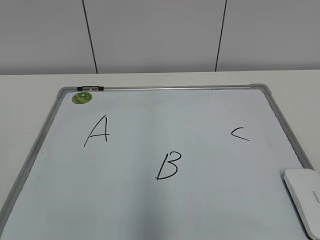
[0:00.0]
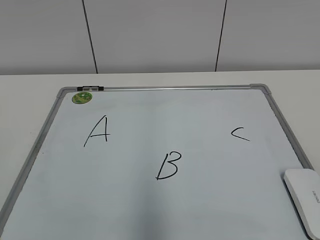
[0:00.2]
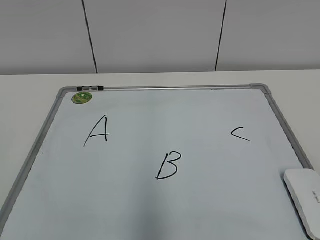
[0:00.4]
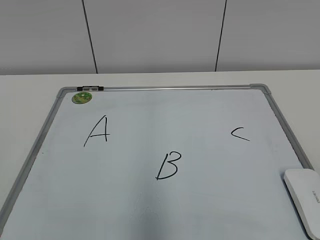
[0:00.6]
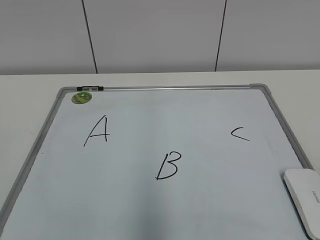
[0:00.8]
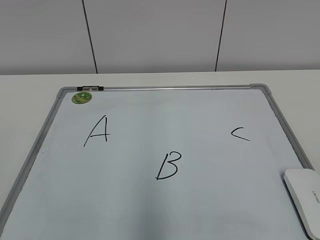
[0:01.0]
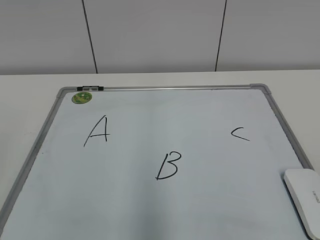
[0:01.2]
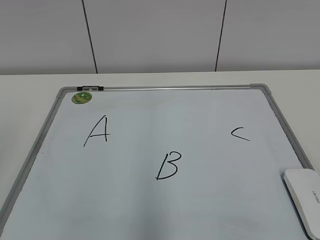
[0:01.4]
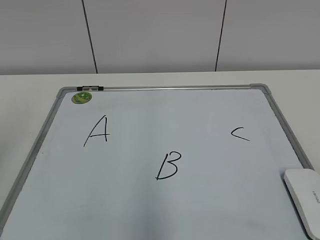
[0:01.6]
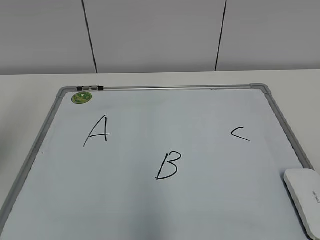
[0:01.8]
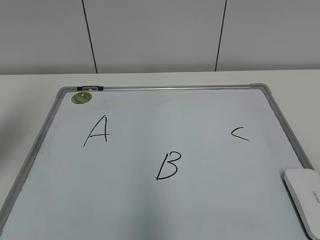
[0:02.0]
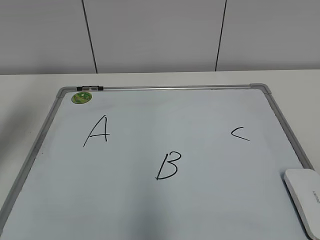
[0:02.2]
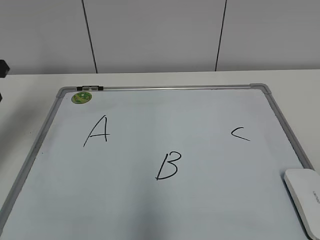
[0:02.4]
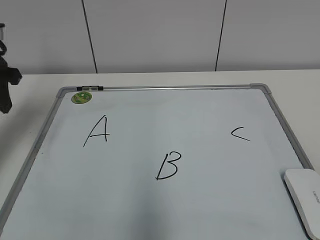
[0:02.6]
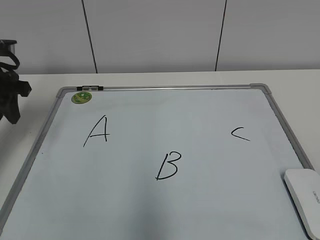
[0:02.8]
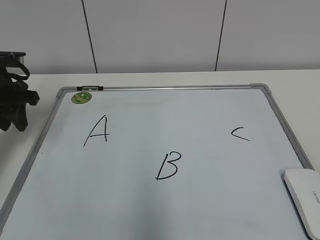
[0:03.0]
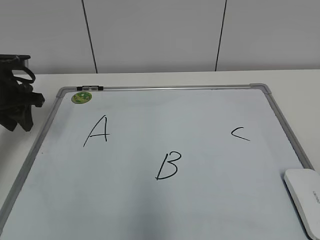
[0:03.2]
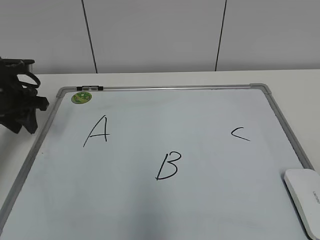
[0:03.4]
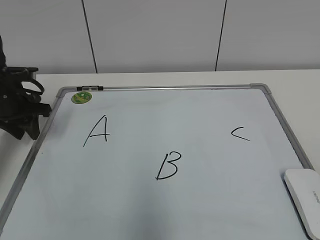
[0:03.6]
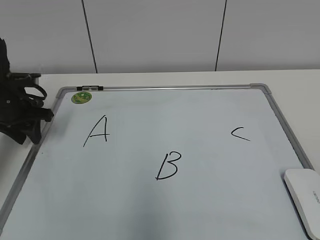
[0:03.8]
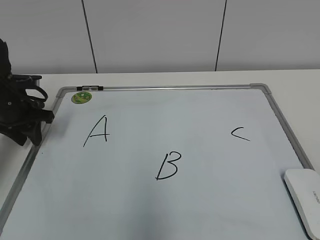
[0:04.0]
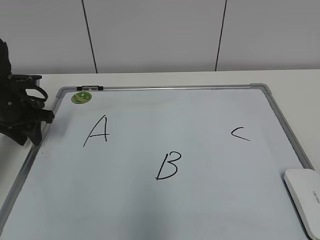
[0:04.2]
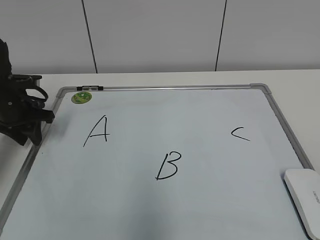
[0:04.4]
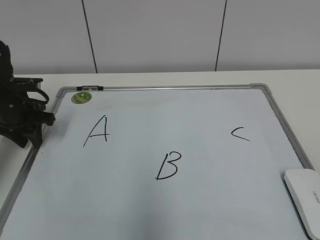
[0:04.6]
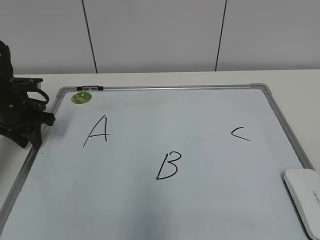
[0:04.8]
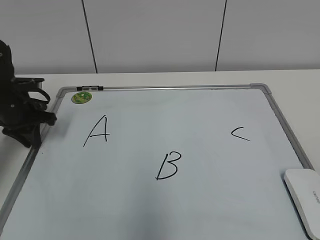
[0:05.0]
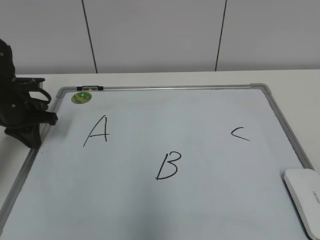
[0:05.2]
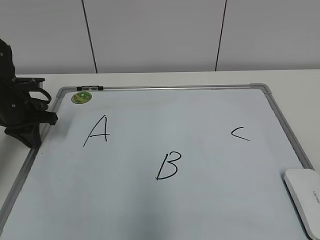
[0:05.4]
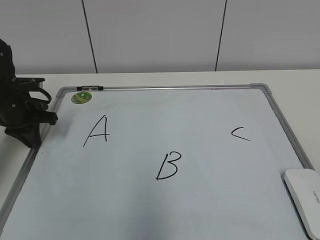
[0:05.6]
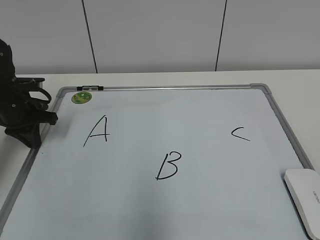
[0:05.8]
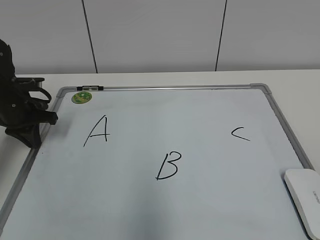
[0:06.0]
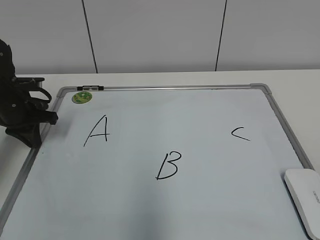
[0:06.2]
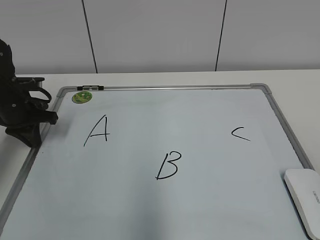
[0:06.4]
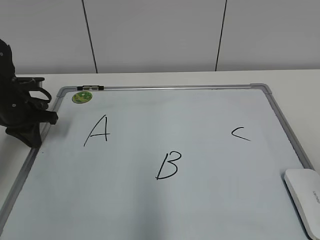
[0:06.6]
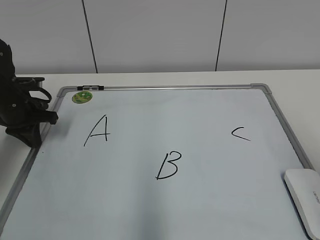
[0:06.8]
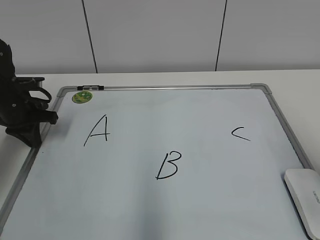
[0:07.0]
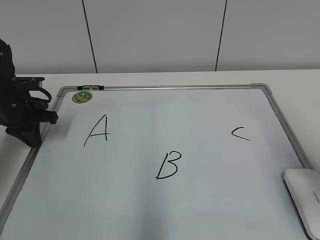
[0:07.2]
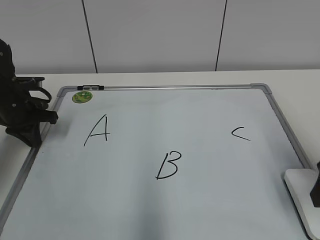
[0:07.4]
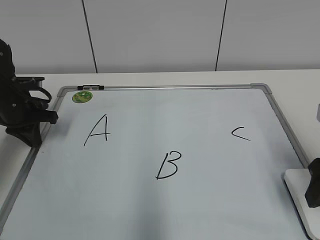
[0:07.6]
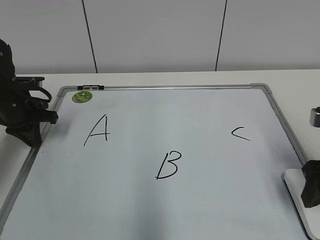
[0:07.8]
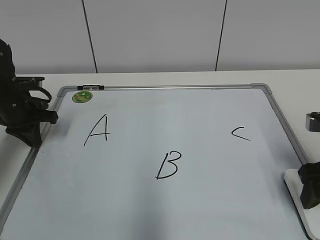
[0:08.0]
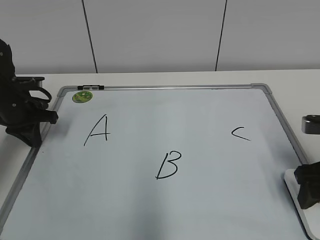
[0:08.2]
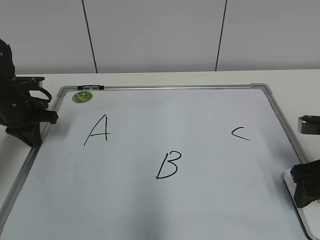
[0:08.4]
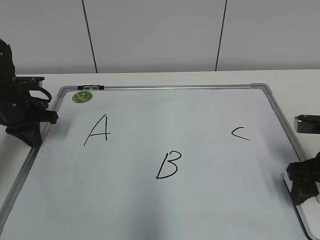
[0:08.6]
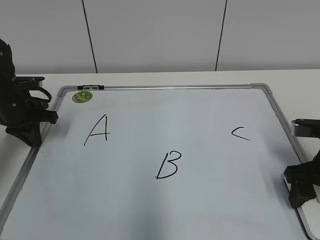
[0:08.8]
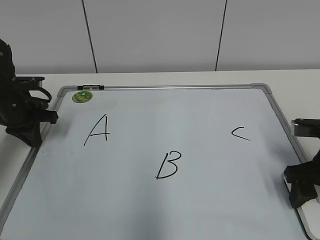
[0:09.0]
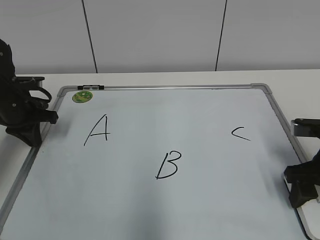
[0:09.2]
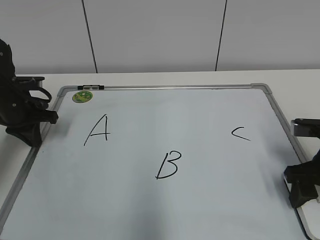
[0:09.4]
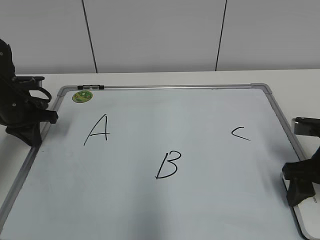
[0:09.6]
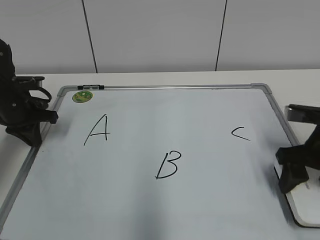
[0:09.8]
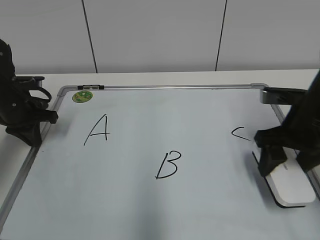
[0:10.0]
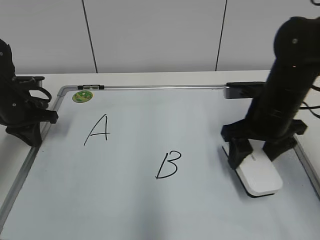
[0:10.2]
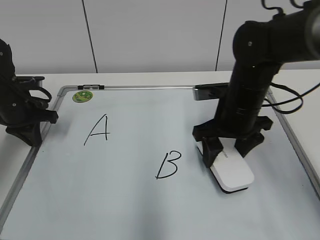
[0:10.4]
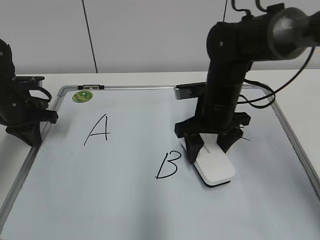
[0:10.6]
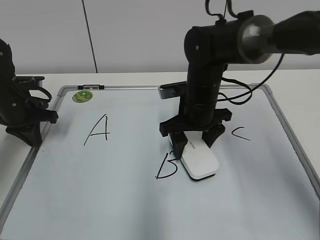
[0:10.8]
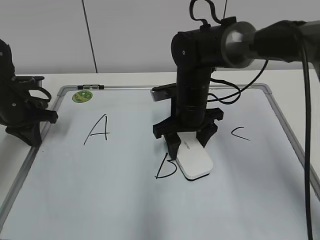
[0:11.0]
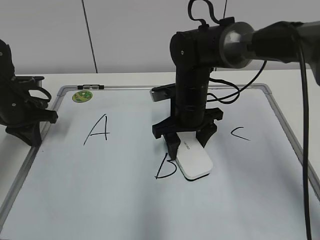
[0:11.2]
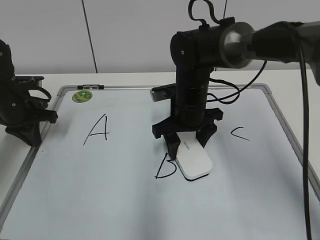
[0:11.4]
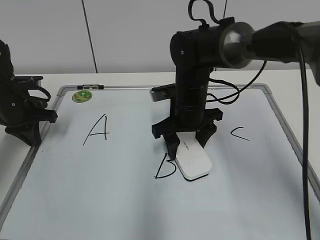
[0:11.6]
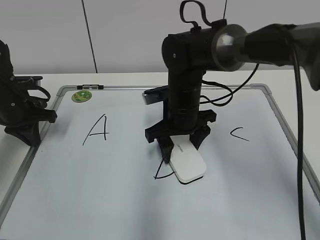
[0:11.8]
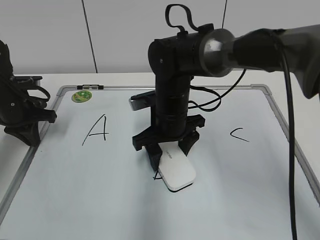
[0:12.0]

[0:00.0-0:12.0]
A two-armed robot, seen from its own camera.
Task of the whole recording: pick up the eraser on the blackboard and erase the letter "B".
Step, 0:00.0 to 0:05.0: Hold the drawing board steady with your left hand.
Step, 0:05.2 to 0:09.2: Grab the eraser with your right hand.
0:01.6 to 0:03.0: The left gripper moves forward and downward, roughly 25 cm.
0:03.0 to 0:04.4: The left gripper goes approximately 5 cm downward.
0:04.4 to 0:06.0: The left gripper closes.
0:06.0 to 0:07.6: The right gripper shifts approximately 20 cm forward.
0:07.6 to 0:09.0: The right gripper shifts roughly 5 cm downward, and closes up.
0:09.0 to 0:10.4: The right gripper shifts some 15 cm to the left and forward.
0:10.4 to 0:12.0: The right gripper shifts roughly 10 cm to the left.

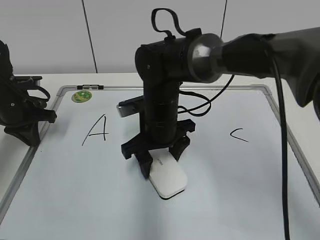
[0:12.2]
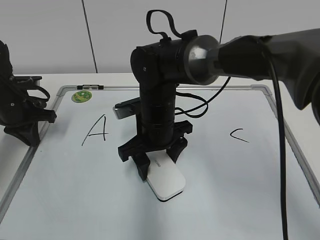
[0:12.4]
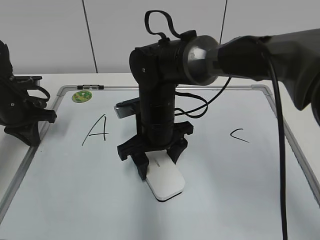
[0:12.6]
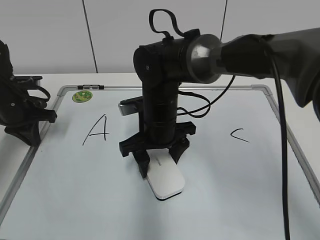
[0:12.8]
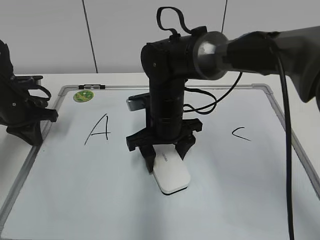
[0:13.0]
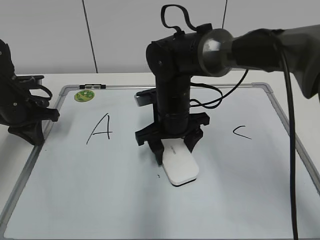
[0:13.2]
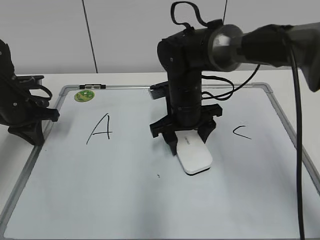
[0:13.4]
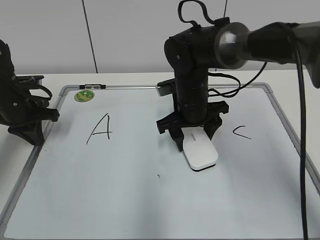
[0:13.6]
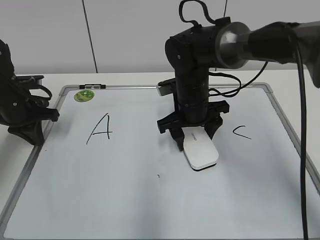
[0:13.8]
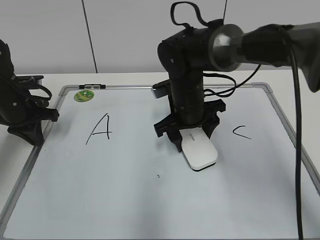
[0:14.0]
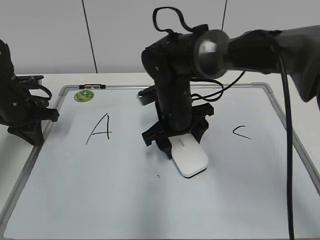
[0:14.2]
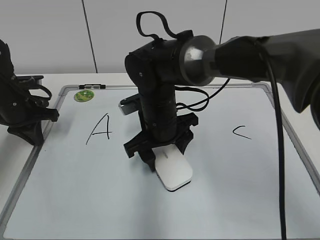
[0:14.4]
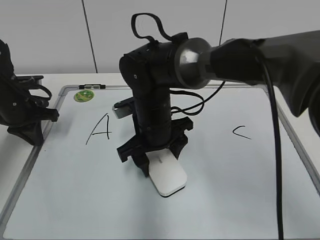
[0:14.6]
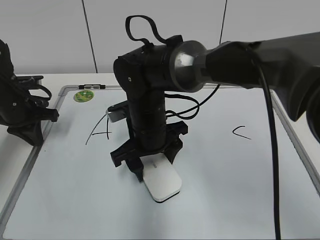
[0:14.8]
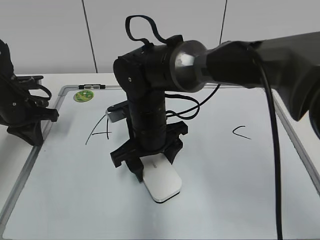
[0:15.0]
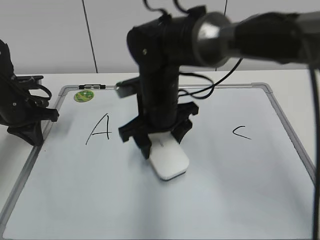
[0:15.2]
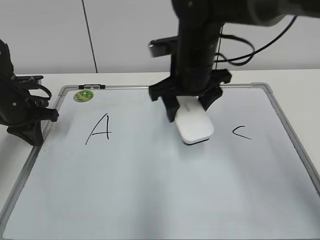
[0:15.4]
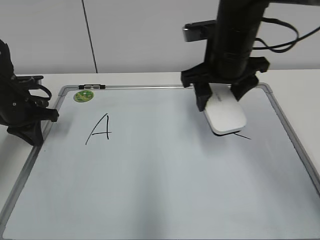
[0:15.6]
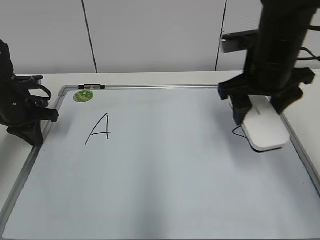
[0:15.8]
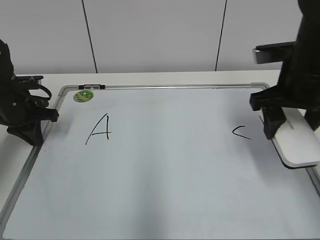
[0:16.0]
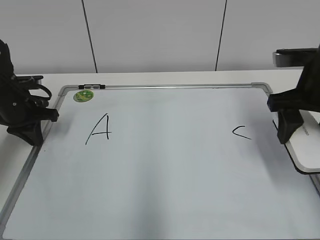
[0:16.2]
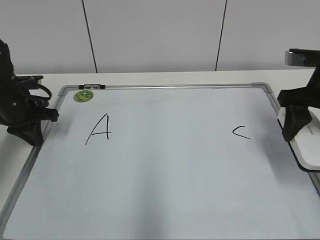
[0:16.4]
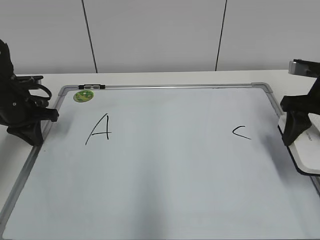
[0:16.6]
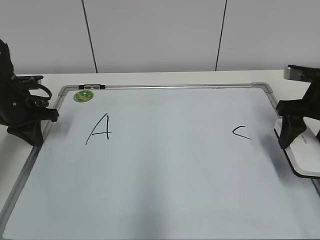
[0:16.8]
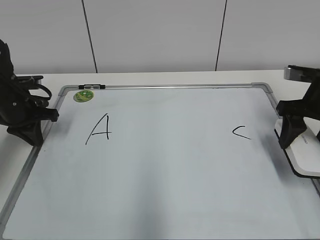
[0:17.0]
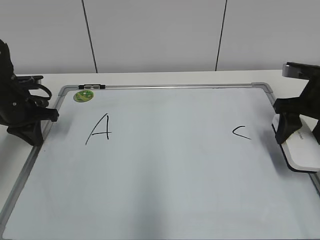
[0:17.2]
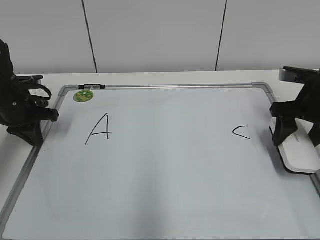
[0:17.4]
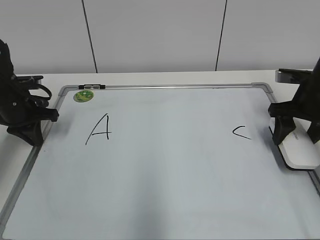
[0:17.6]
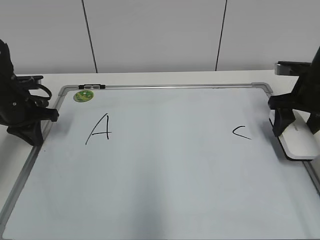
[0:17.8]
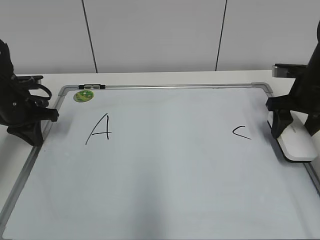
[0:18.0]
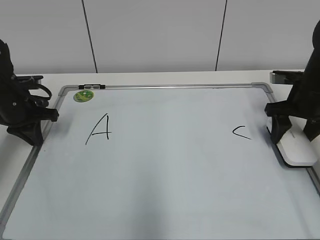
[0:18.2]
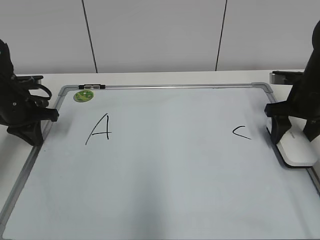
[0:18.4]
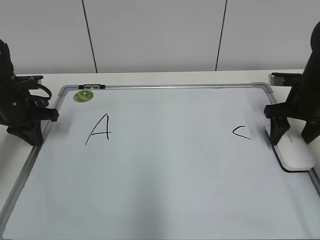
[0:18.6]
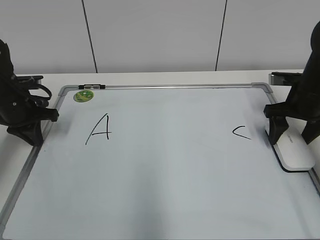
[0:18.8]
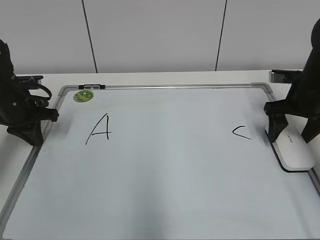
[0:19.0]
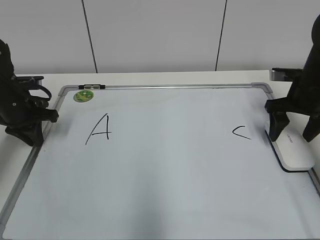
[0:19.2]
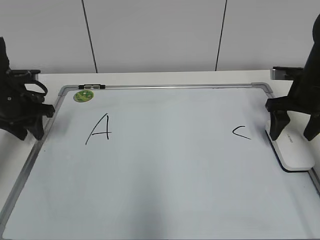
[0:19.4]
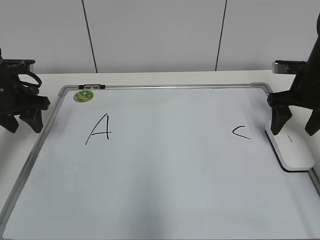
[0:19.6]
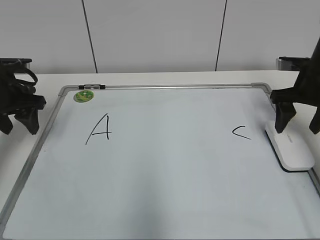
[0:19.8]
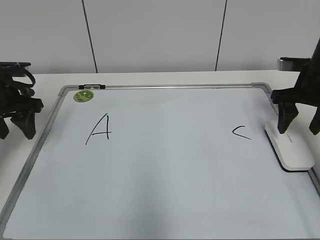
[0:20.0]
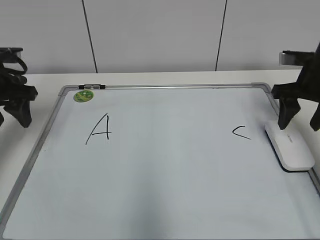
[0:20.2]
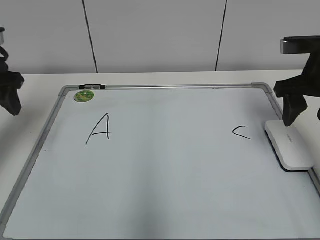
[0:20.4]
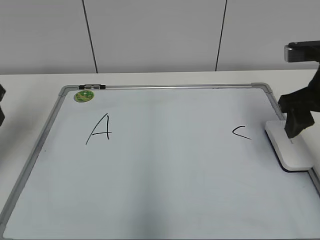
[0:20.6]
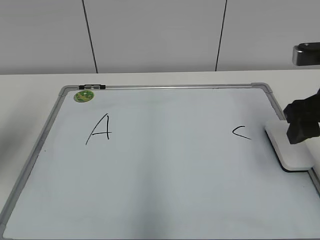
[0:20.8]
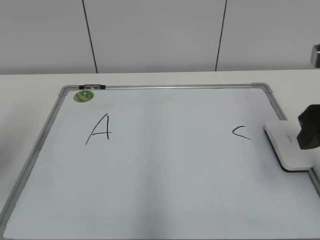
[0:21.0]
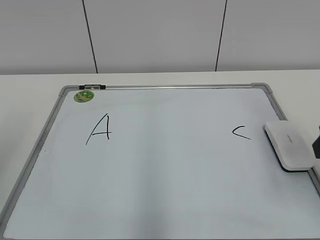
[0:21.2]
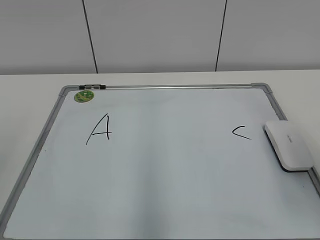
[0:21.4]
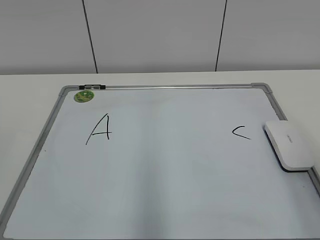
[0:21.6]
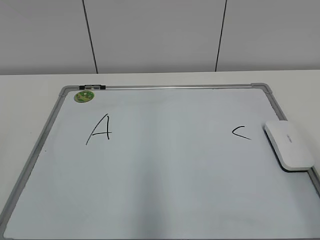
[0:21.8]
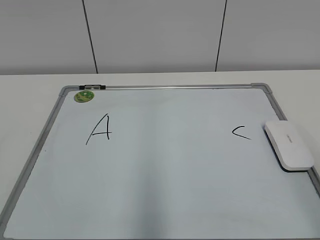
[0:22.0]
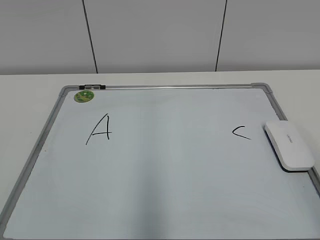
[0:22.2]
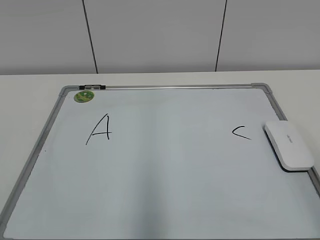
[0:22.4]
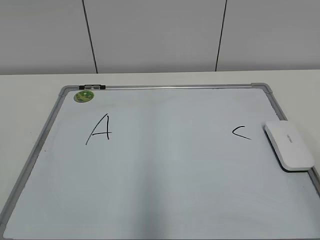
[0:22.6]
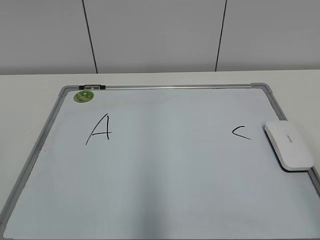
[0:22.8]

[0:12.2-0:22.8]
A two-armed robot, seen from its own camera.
Task of the whole recording: pick up the eraser on the blackboard and erase the letter "B".
Step, 0:12.2 to 0:14.8: Erase the letter B with your right hand.
0:12.2 to 0:13.8: The right gripper heads to the right, covering roughly 5 cm.
0:13.8 to 0:15.2: The right gripper moves to the left and upward, approximately 5 cm.
0:15.2 to 0:16.8: The right gripper heads to the right, covering some 25 cm.
0:16.8 to 0:18.2: The right gripper travels forward by approximately 5 cm.
0:18.2 to 0:19.8: The left gripper shifts by approximately 5 cm, and opens; the right gripper opens.
0:19.8 to 0:21.2: The left gripper moves backward and upward, roughly 25 cm, while the right gripper shifts approximately 20 cm backward, and closes.
0:21.2 to 0:22.8: The right gripper goes some 15 cm backward.
